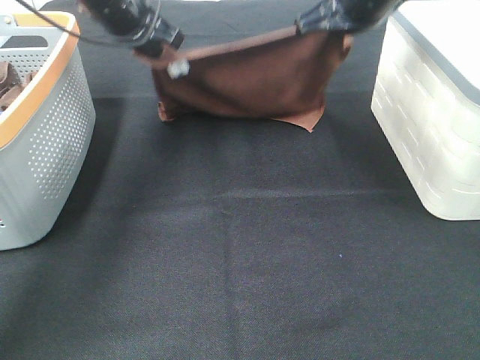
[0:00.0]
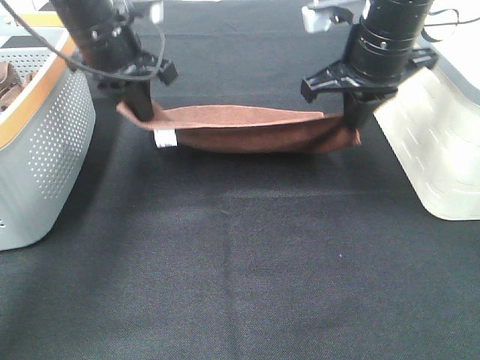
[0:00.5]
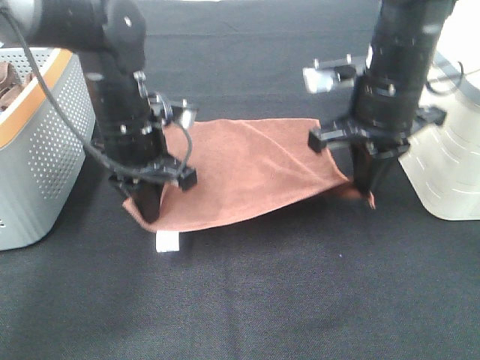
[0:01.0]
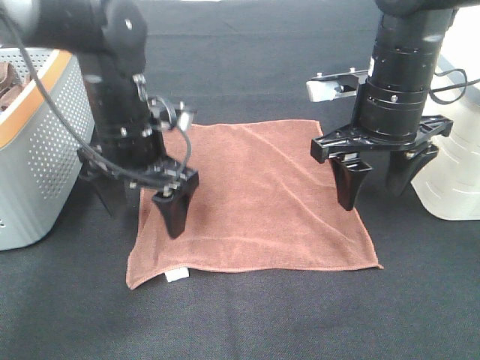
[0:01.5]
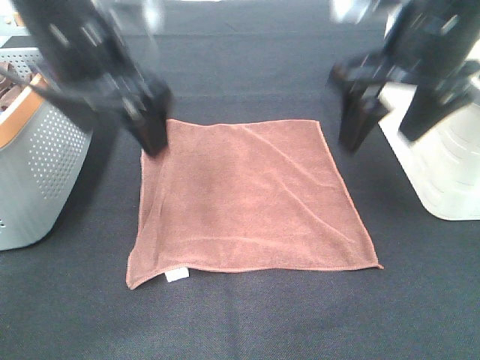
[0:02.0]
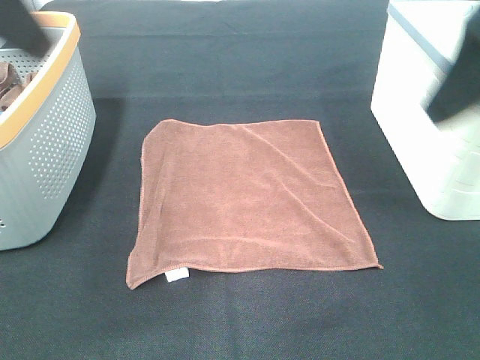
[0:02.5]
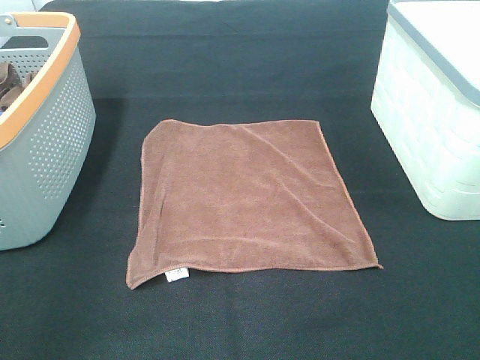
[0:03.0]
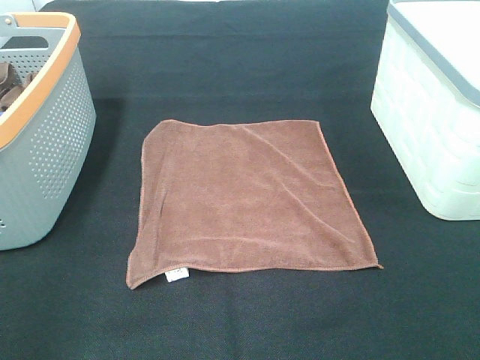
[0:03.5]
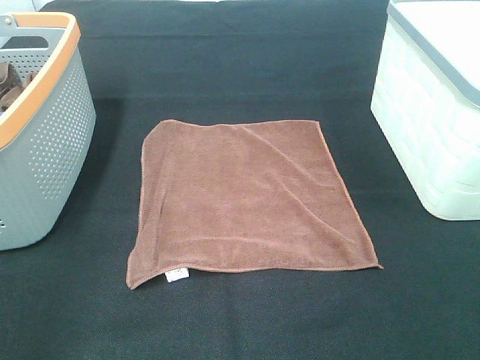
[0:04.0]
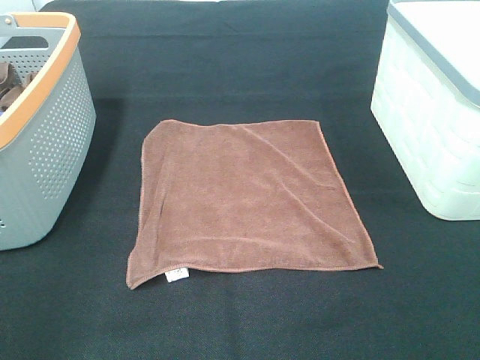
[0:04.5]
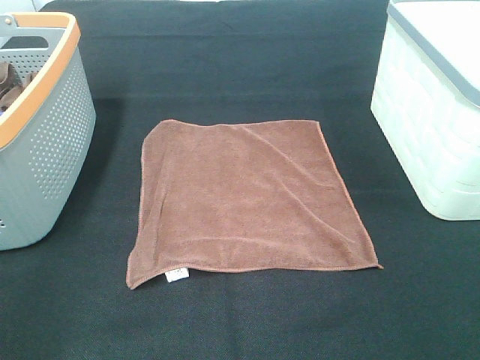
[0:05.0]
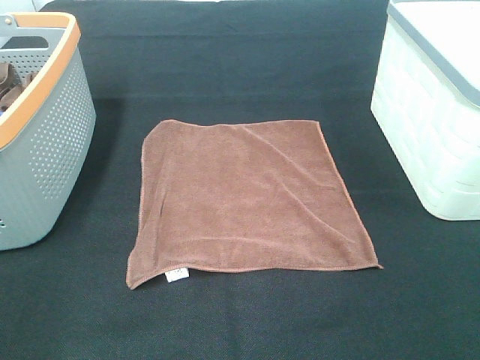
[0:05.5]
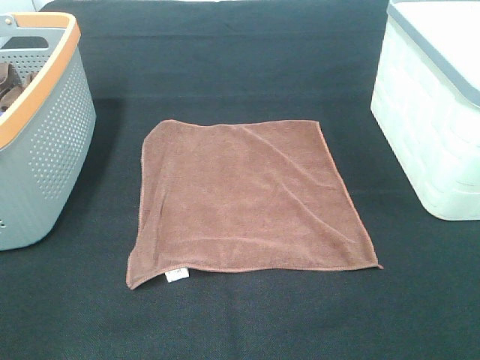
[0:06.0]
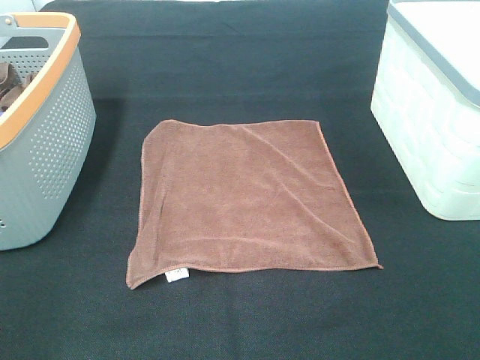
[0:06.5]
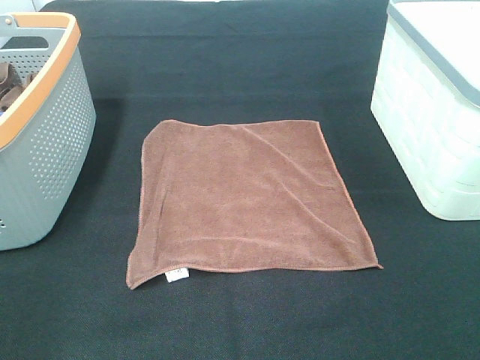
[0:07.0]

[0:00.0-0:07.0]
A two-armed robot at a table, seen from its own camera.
Task of the whole recording: Remove the towel and place it.
0:00.0 to 0:02.0: Both grippers move backward, roughly 15 cm. The left gripper opens up. The right gripper opens.
0:02.0 to 0:03.5: The left gripper travels backward and to the left by approximately 30 cm, while the right gripper is displaced backward and to the right by roughly 30 cm.

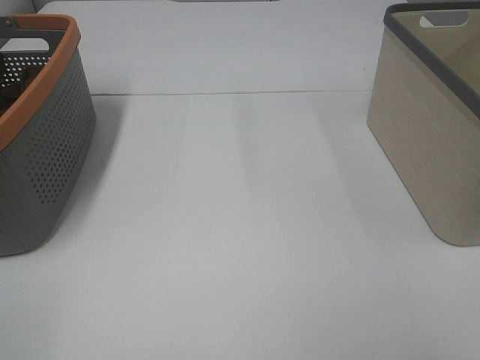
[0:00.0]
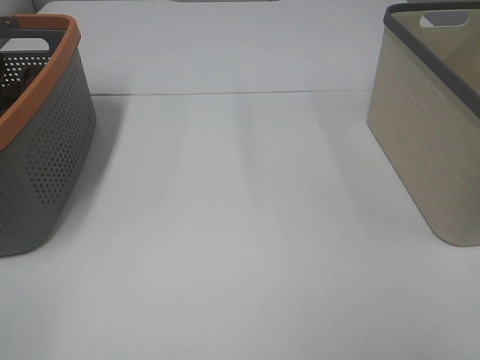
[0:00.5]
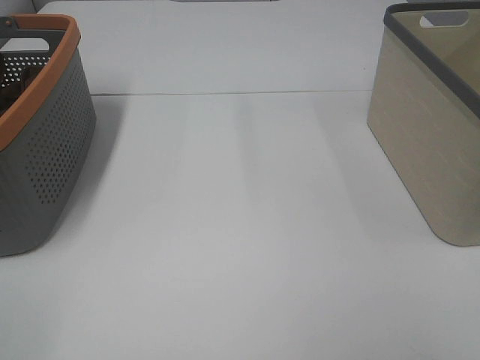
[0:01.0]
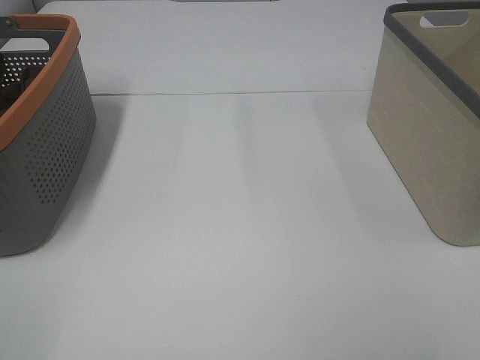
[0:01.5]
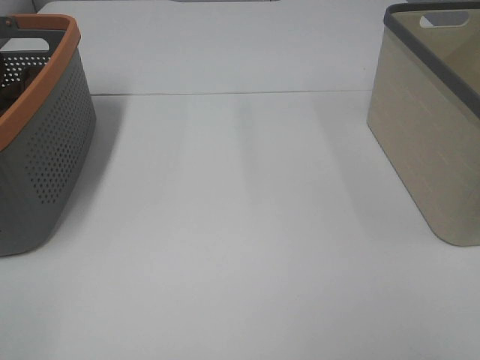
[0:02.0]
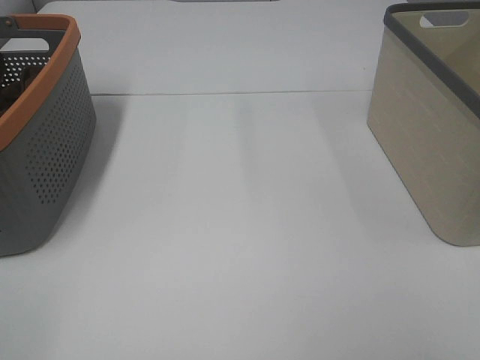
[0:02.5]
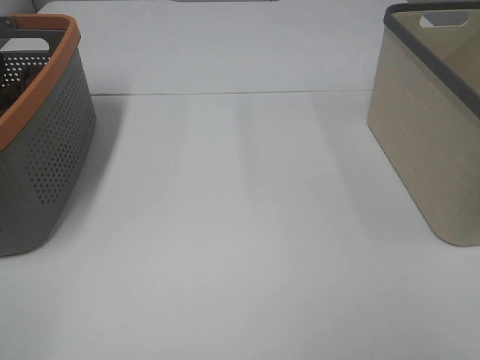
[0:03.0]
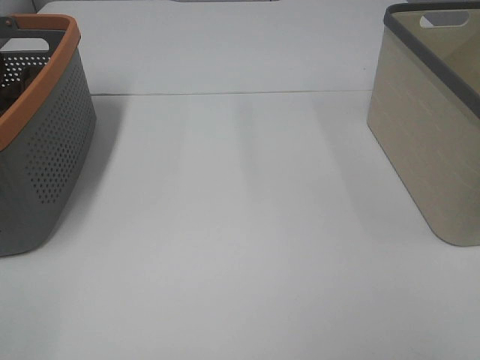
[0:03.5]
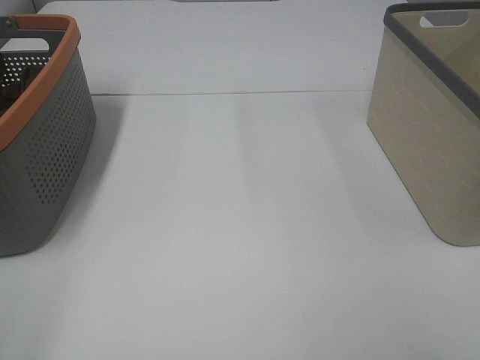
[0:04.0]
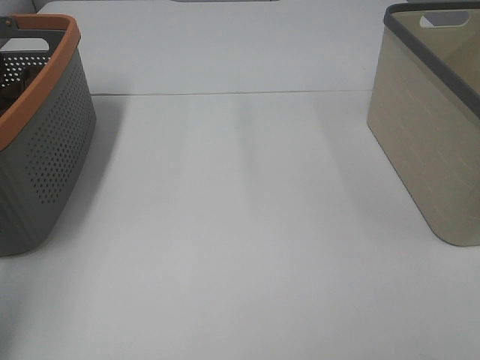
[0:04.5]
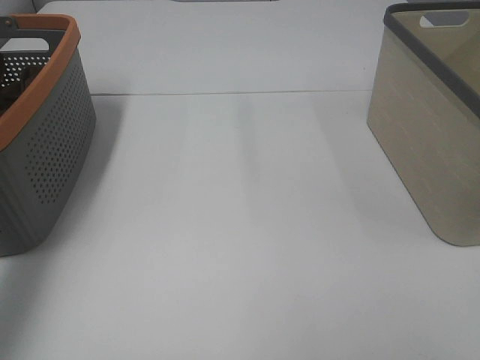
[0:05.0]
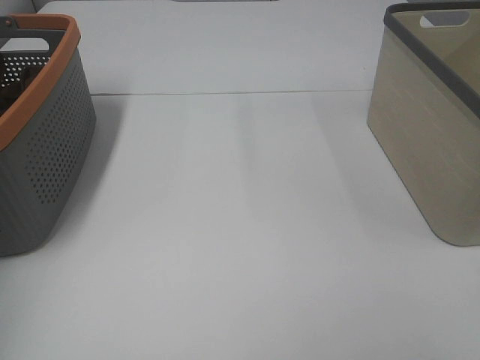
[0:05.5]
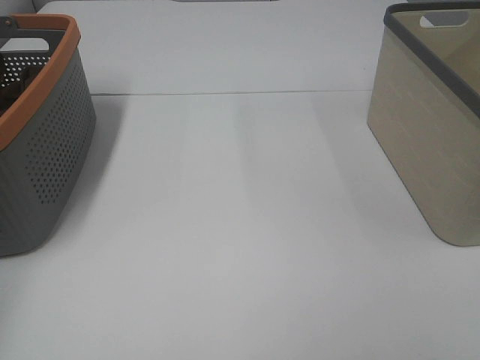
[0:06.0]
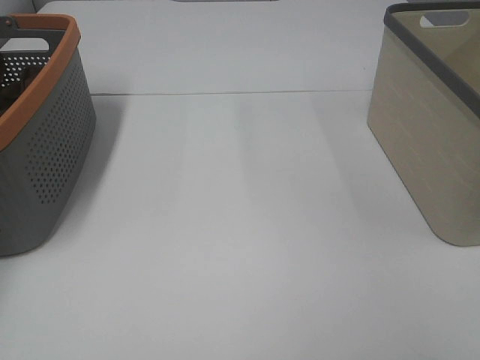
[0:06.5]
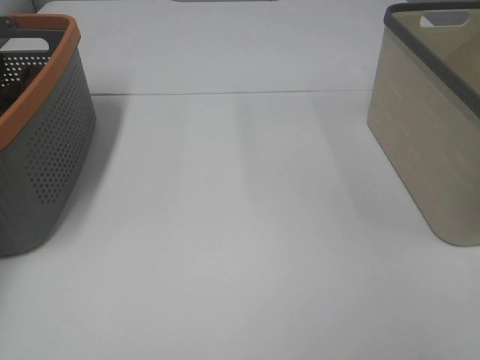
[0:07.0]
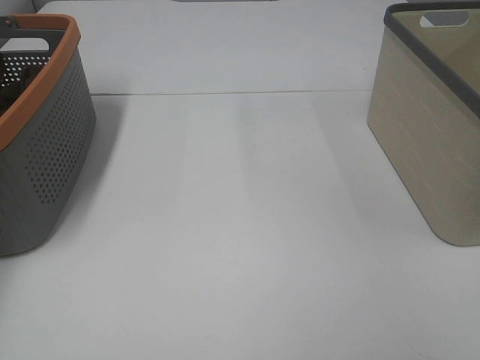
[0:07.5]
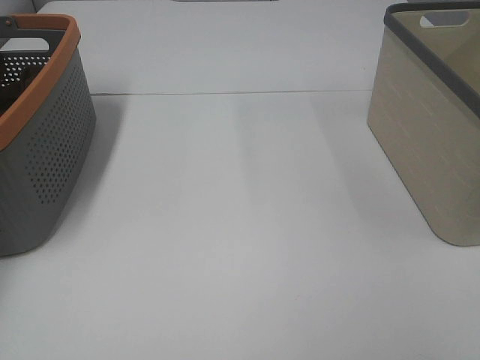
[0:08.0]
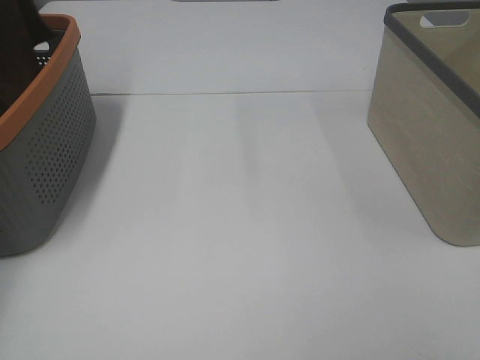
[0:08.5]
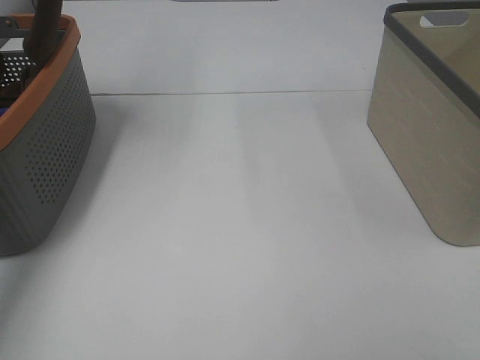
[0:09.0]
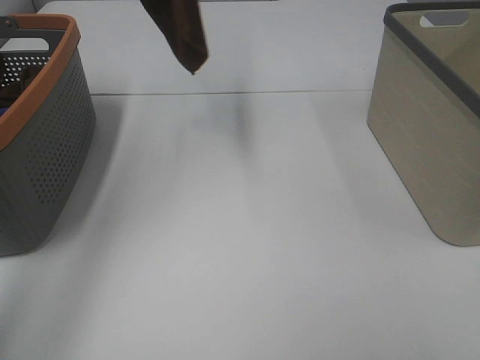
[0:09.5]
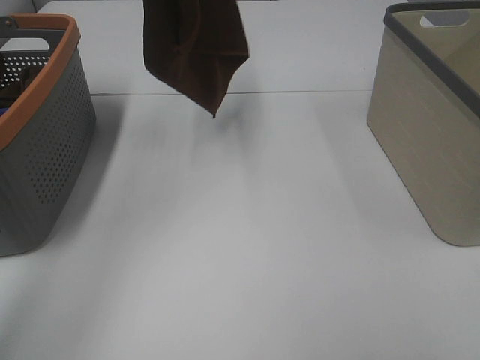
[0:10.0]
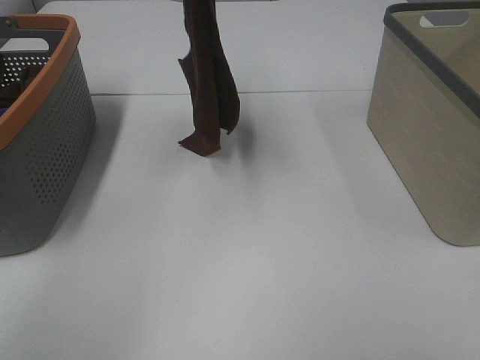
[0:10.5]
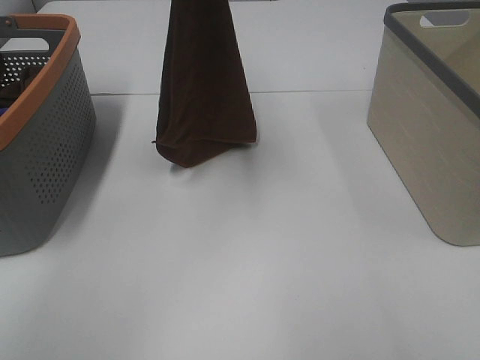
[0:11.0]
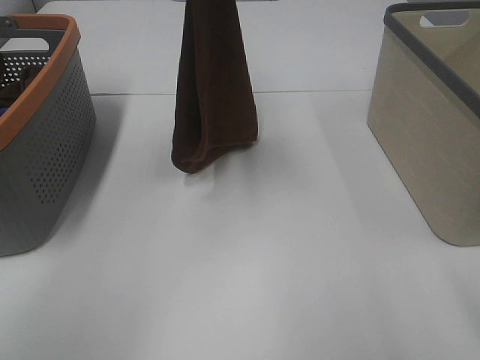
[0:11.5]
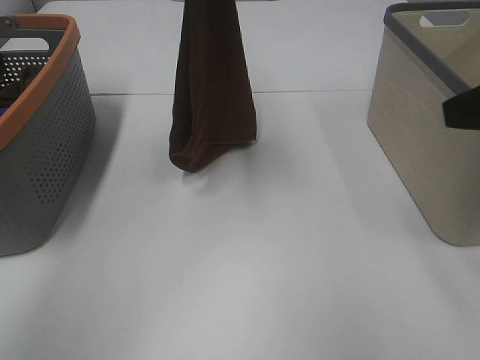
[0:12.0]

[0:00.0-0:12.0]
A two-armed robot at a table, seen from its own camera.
Task of the whole recording: Remove the towel and place it.
0:00.0 to 0:02.0: Both grippers stay put.
0:08.0 to 0:10.0: The left gripper is displaced to the right and upward by some 35 cm.
0:10.0 to 0:12.0: The right gripper goes about 20 cm forward, while the left gripper goes some 10 cm downward and to the right.

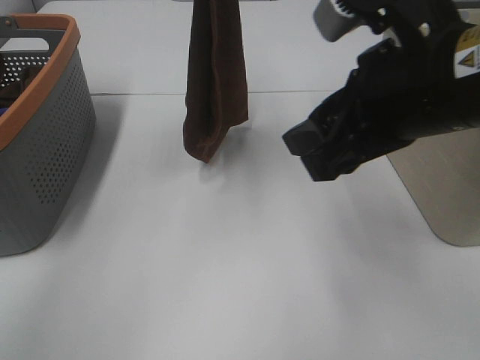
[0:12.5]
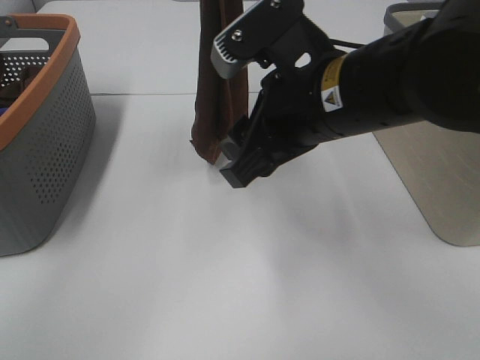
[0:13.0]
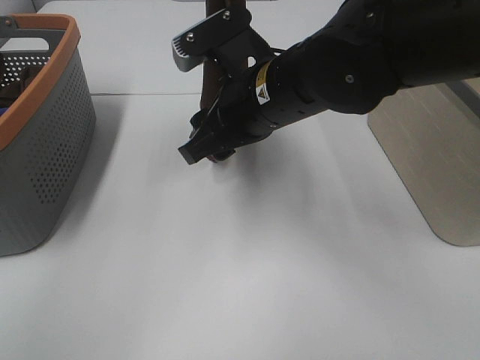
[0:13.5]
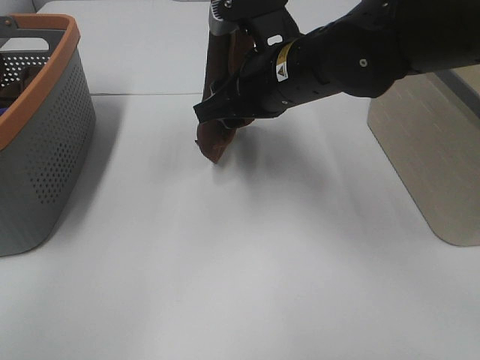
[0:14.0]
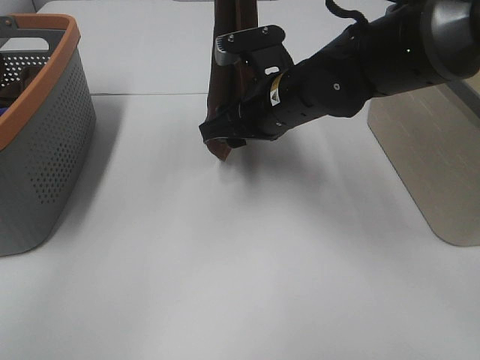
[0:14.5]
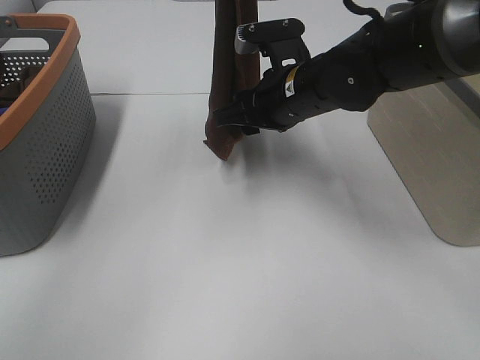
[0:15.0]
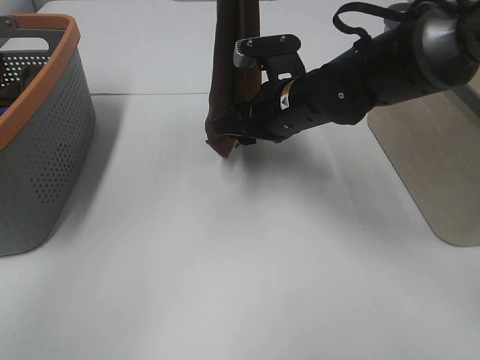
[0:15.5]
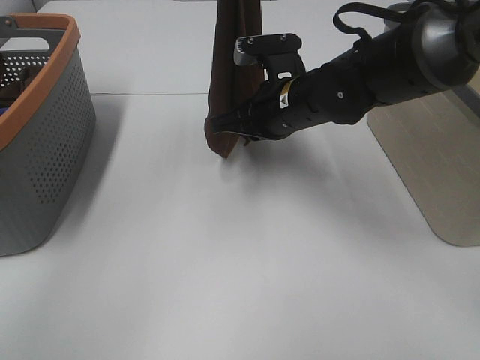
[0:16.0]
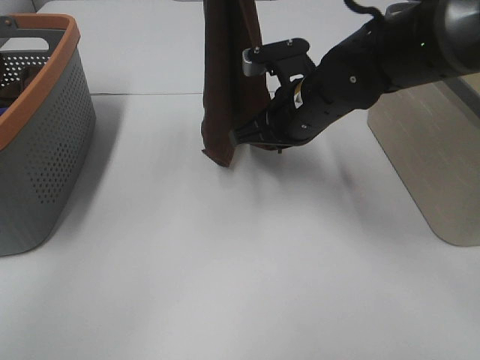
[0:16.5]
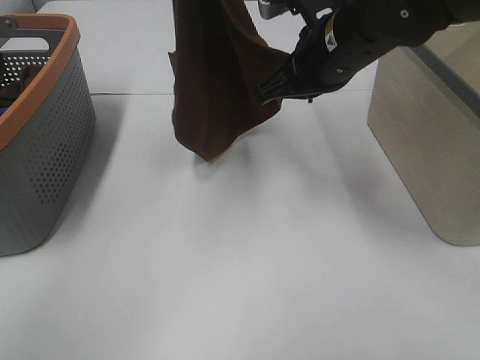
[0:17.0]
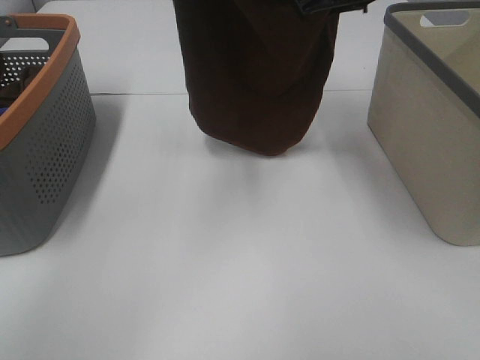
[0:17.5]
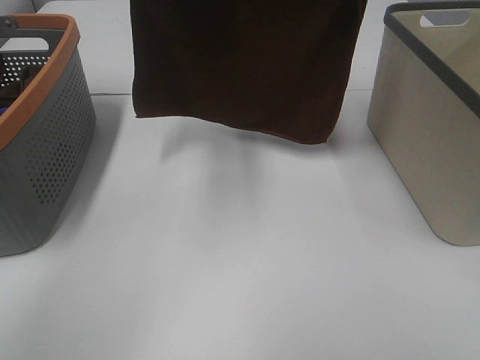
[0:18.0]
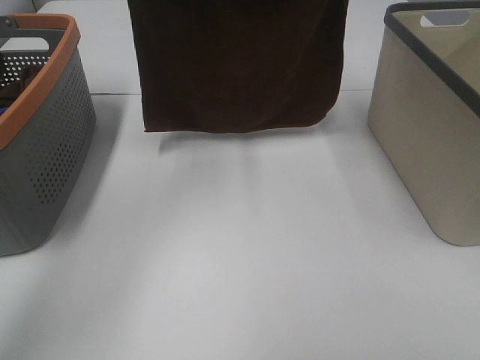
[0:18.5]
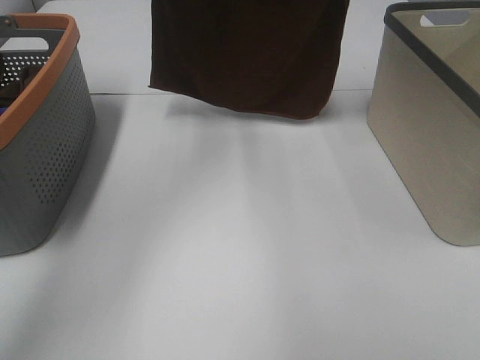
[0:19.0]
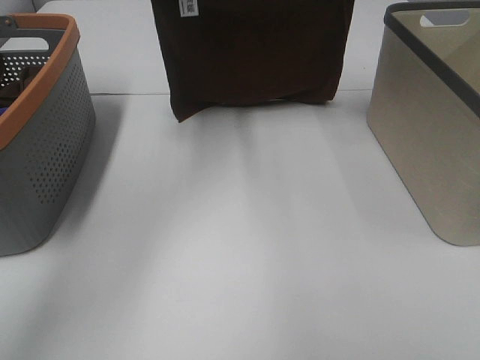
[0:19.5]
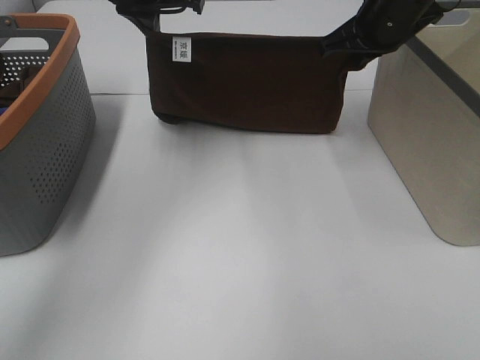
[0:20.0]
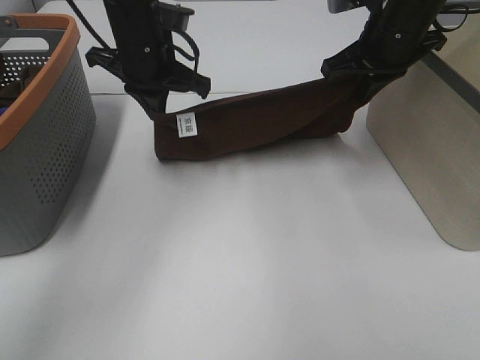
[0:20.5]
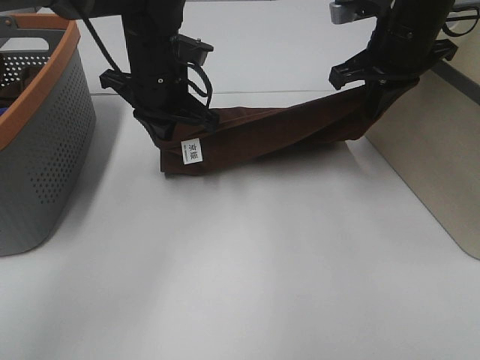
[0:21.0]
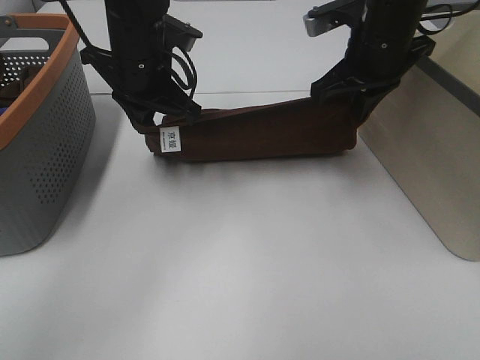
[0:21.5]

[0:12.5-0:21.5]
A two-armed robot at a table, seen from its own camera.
Task of the whole recording: Remove the towel and place it.
Step, 0:12.5 to 0:14.5: Right hand: grab a corner of the brown towel and straighten it.
Step, 0:15.0 to 0:18.5: Left hand: spread the brown towel flat on the table.
Step, 0:15.0 to 0:18.5: Right hand: spread the brown towel flat on the table.
0:12.5 to 0:14.5: The right gripper goes roughly 20 cm forward, downward and to the left.
0:14.5 to 0:17.0: The right gripper goes some 5 cm upward, and closes.
0:17.0 to 0:19.5: The left gripper moves downward and forward, approximately 15 cm, while the right gripper heads forward and to the right, covering some 15 cm.
0:19.5 to 0:21.5: The left gripper moves downward and backward, some 15 cm; the right gripper shifts roughly 5 cm backward.
